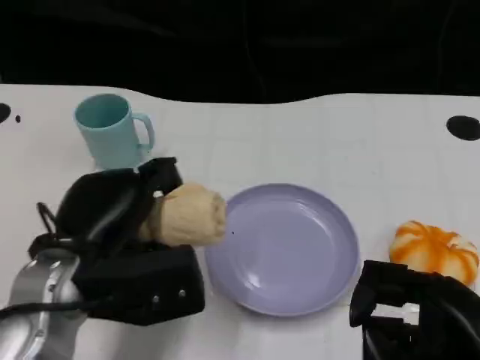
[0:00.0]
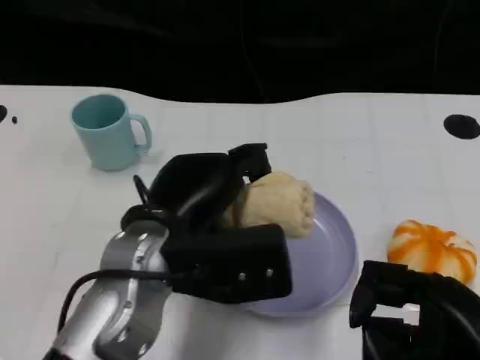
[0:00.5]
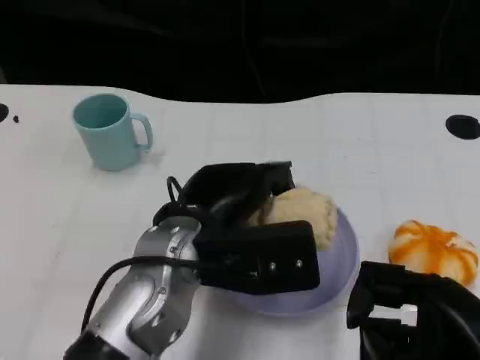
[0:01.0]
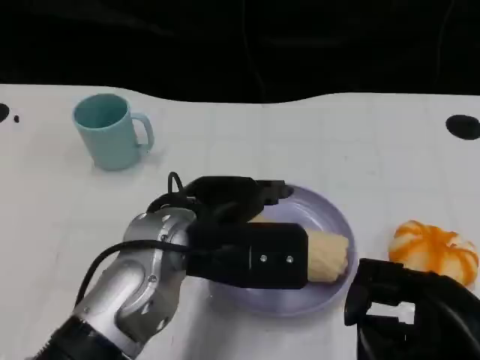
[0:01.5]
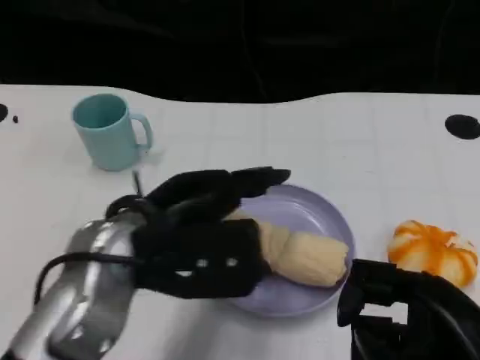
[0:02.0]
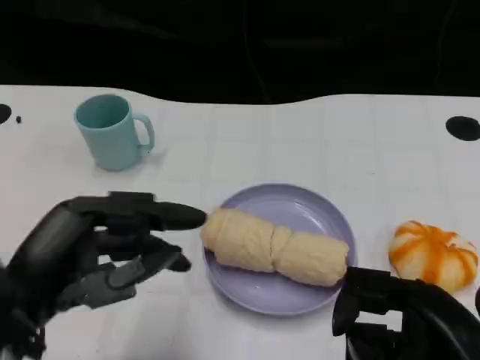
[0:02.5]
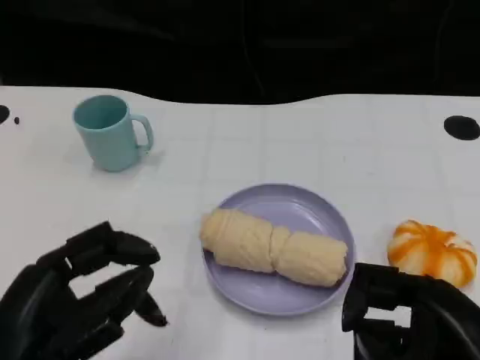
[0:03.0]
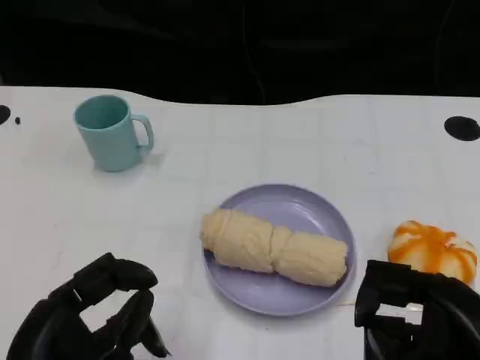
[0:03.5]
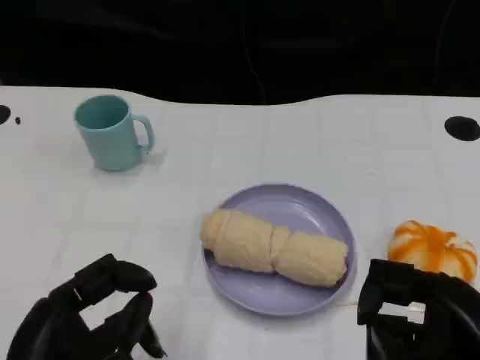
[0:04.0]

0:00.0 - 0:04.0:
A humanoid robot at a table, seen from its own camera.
Task of the whole recording: Grasp the towel on the left side of the plate with the left hand and place it into the plate.
0:00.0 - 0:02.0: The left hand goes to the right and returns, roughly 10 cm each way.
0:02.0 - 0:04.0: The left hand heads backward, to the left and downward, covering roughly 15 cm.
